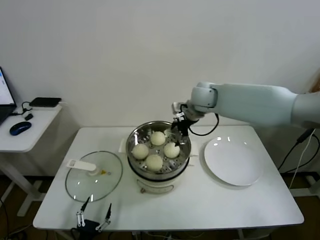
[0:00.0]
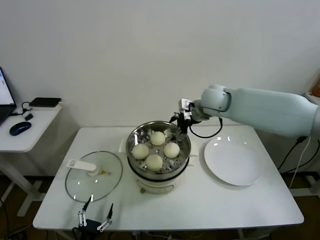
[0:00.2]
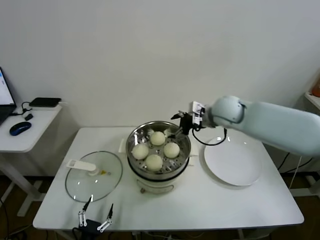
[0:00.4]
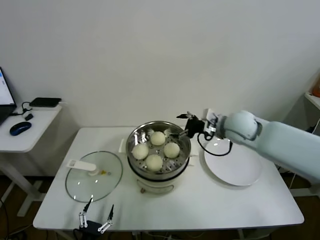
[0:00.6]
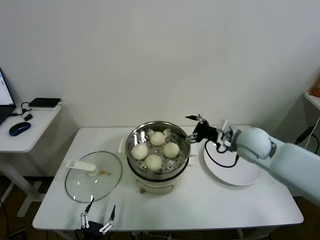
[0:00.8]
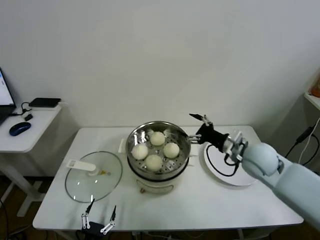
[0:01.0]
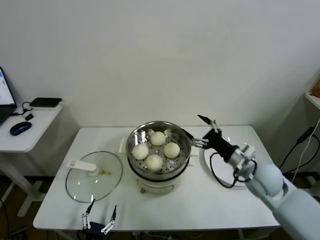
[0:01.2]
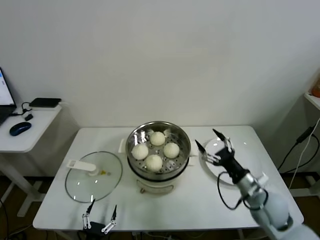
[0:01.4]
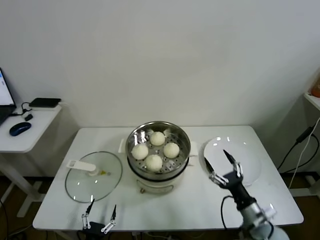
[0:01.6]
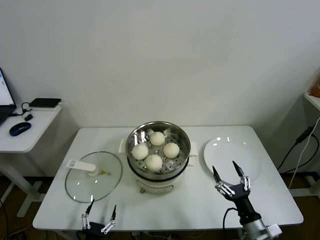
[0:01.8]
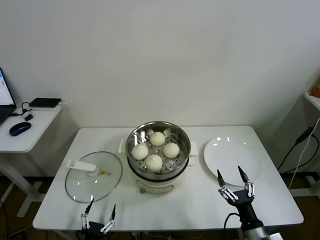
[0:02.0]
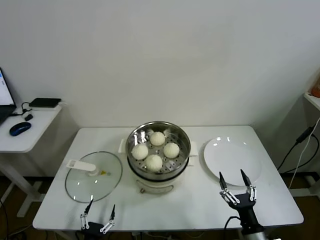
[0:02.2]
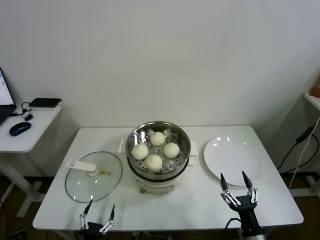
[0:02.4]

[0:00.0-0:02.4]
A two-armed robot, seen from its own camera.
Task of the whole recording: take steamed baozi put them in steamer.
0:00.0 to 0:01.2: The right gripper is displaced backward, to the right and downward by about 30 cm.
0:01.2 to 0:02.4: The right gripper is displaced backward and downward by about 30 cm.

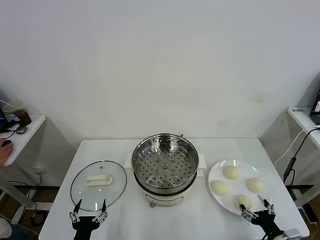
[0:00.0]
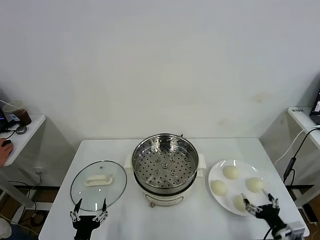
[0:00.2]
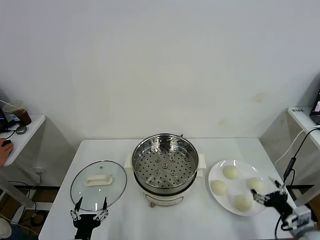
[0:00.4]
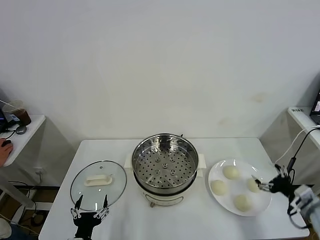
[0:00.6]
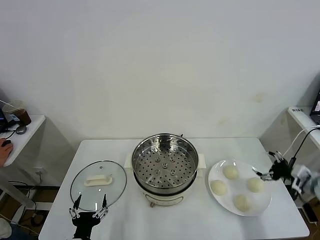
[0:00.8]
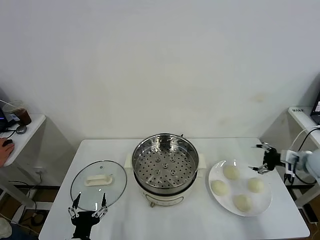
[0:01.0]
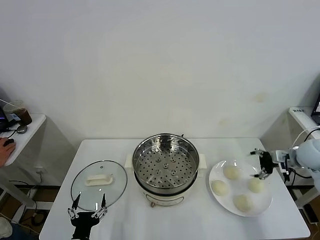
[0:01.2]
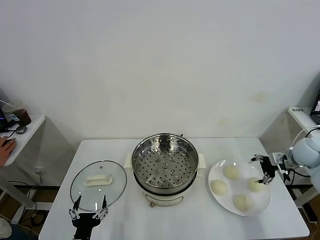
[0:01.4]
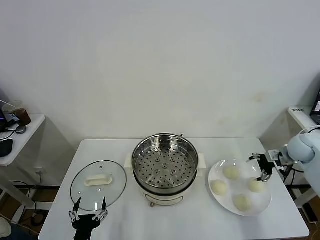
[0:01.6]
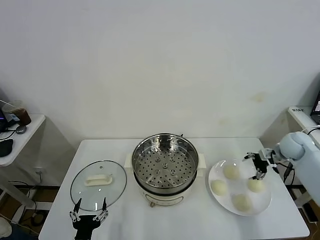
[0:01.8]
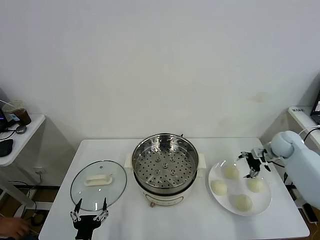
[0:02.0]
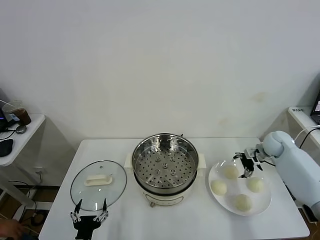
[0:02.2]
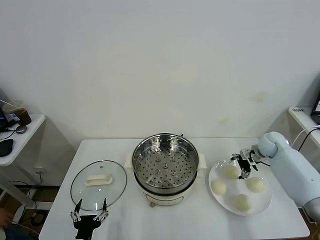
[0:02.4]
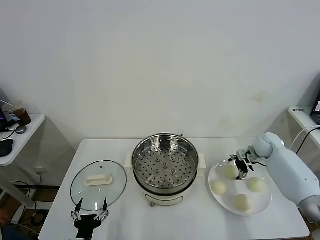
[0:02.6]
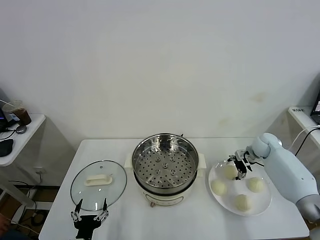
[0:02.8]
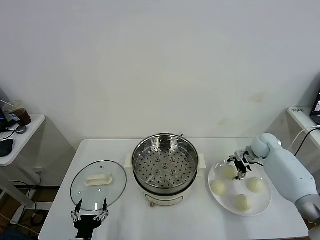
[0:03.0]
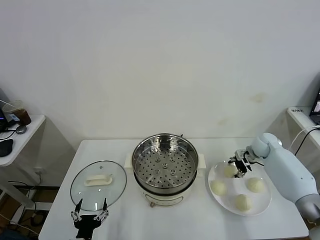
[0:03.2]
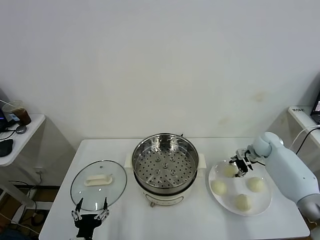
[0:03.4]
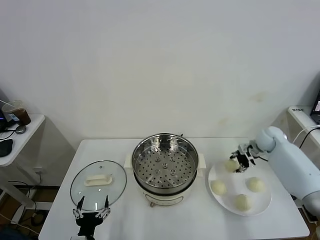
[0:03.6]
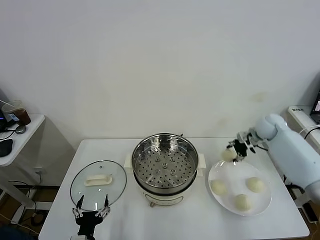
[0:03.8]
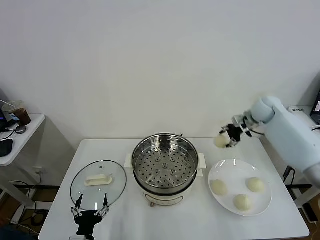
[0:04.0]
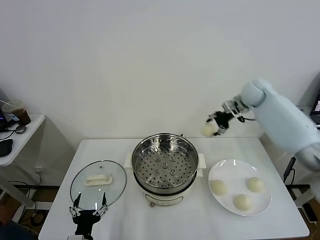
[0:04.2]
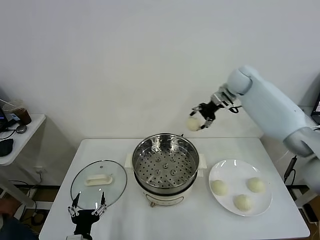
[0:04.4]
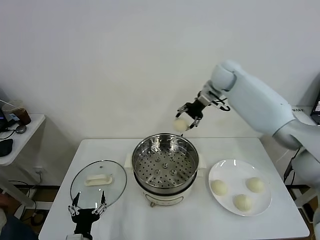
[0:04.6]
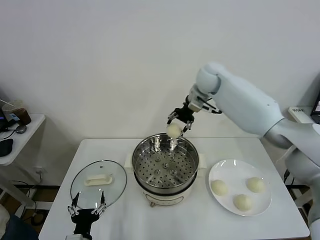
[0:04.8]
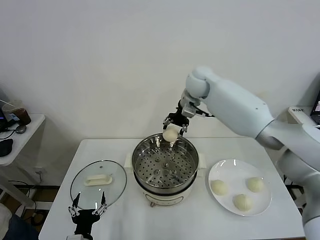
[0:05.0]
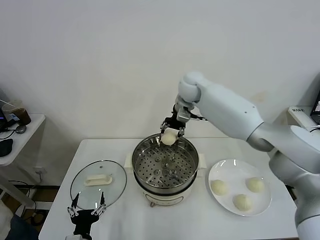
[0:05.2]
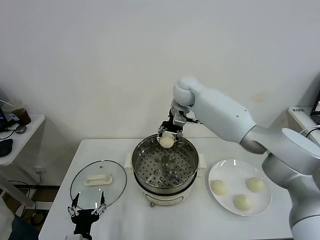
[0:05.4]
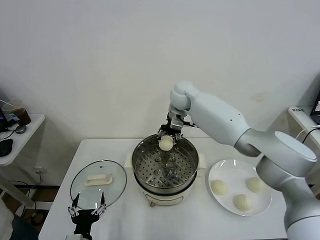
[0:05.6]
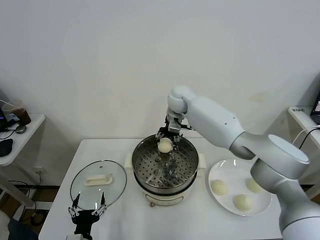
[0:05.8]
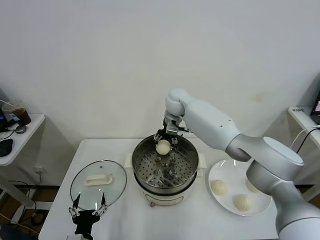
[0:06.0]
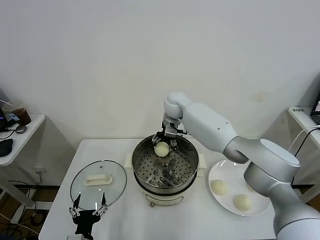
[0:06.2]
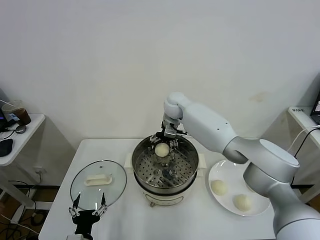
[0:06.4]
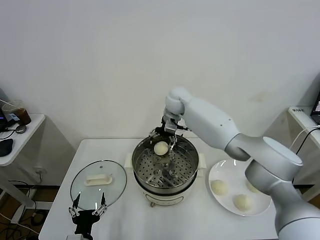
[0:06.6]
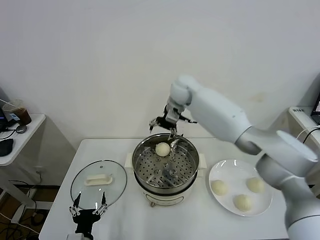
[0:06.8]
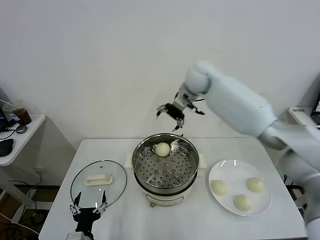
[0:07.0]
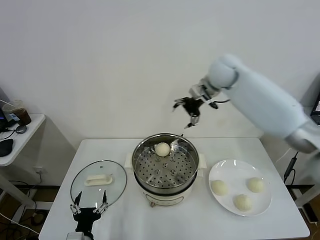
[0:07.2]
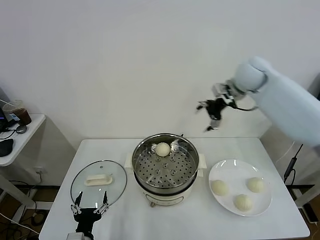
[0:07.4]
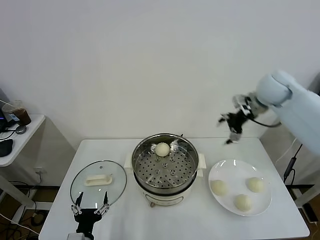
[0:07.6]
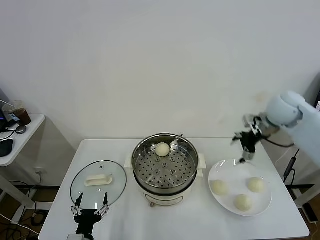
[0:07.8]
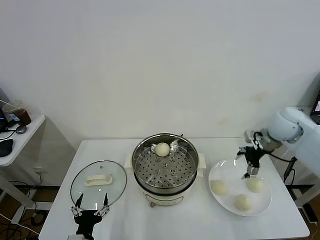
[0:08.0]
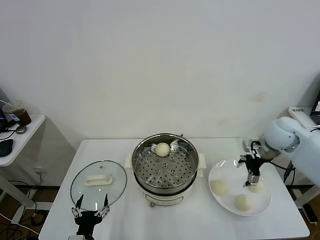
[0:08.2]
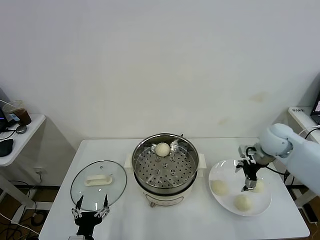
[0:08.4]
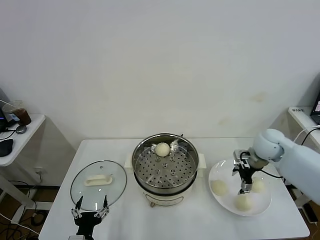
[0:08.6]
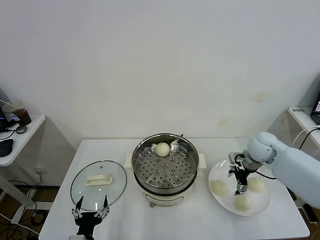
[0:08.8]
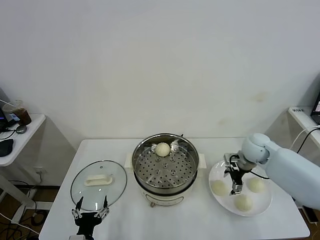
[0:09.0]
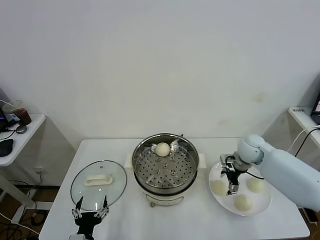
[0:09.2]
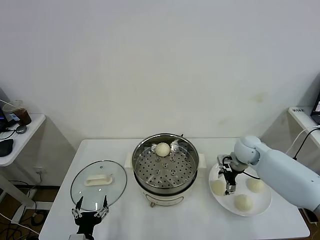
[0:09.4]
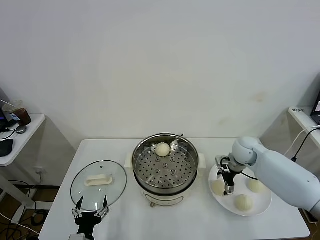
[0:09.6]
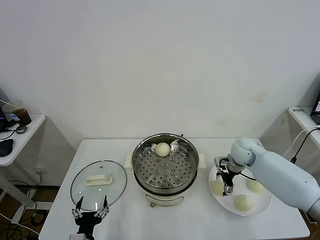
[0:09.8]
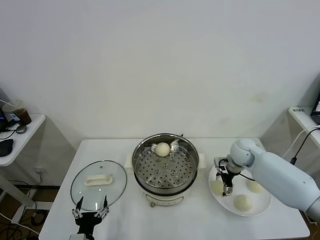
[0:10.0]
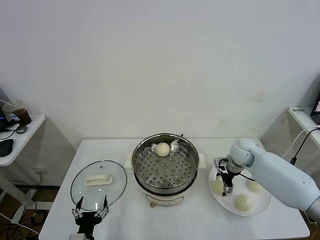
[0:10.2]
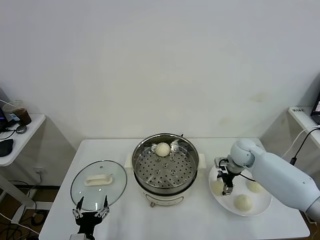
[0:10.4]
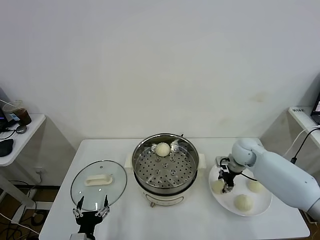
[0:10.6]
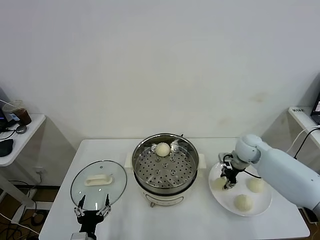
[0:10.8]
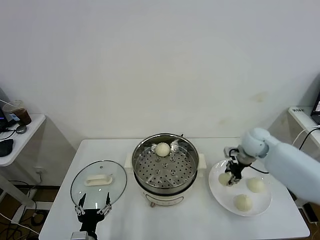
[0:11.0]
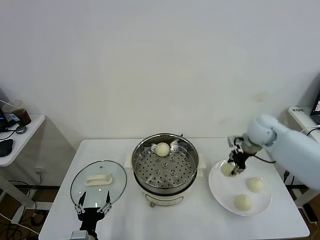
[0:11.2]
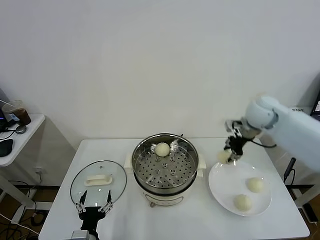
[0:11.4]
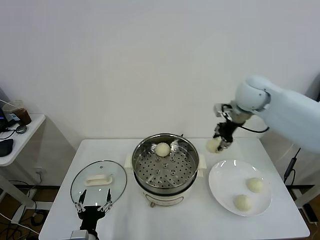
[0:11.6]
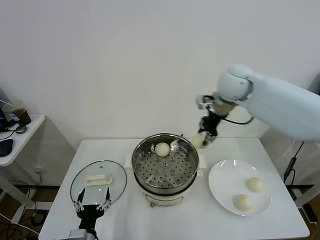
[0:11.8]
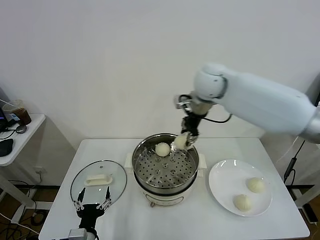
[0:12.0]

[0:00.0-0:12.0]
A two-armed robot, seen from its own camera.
Task of the whole recording: take steamed baozi put them in steamer.
Step, 0:00.0 to 0:03.2: Grasp the baozi in the plate with right gripper.
Step, 0:03.6 to 0:06.4: Place the baozi on the steamer with right gripper.
Step, 0:06.6 to 0:10.6: Grasp the baozi in the plate with right gripper.
0:01.6 to 0:03.0: The right gripper shifts approximately 10 cm downward, to the left and forward.
0:03.0 to 0:04.4: The right gripper is displaced upward and to the left by roughly 30 cm.
0:04.4 to 0:06.0: The right gripper moves to the left and downward, roughly 20 cm.
0:06.0 to 0:07.6: The right gripper heads to the right, covering approximately 30 cm, and opens up.
0:07.6 to 0:09.0: The right gripper travels downward by about 20 cm.
0:09.0 to 0:10.4: The grippers move only a little.
0:10.4 to 0:12.0: The right gripper heads upward and to the left, covering some 35 cm.

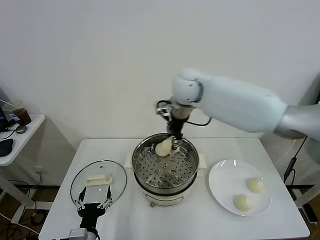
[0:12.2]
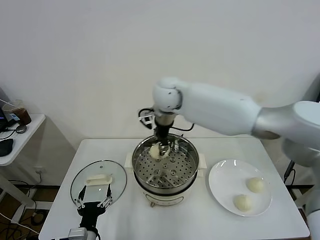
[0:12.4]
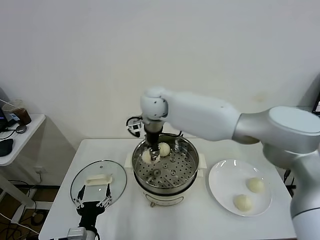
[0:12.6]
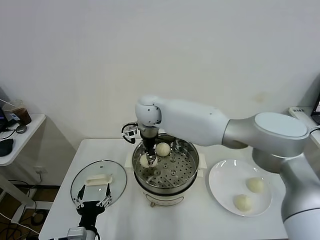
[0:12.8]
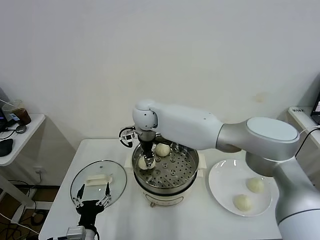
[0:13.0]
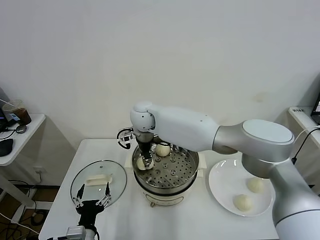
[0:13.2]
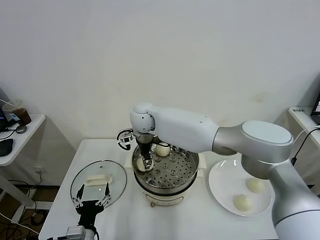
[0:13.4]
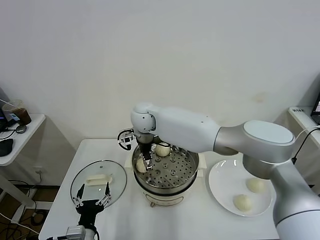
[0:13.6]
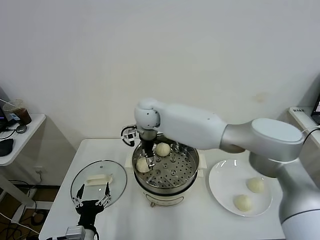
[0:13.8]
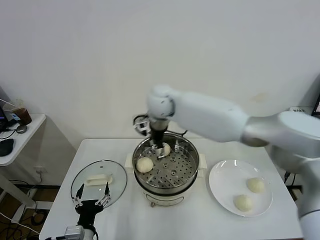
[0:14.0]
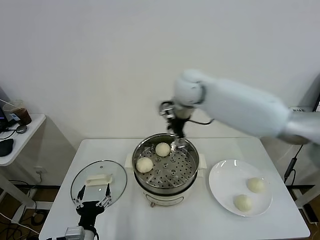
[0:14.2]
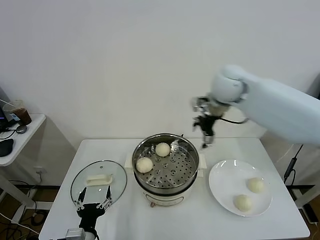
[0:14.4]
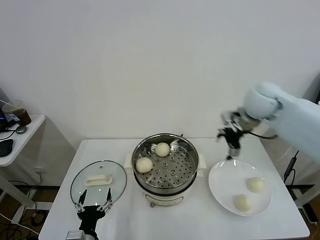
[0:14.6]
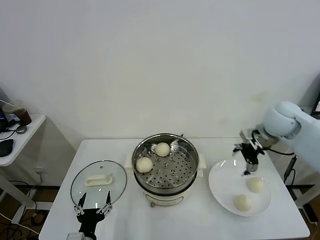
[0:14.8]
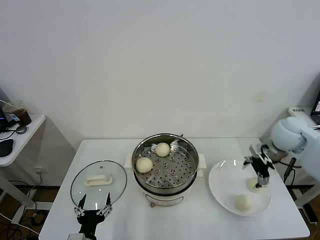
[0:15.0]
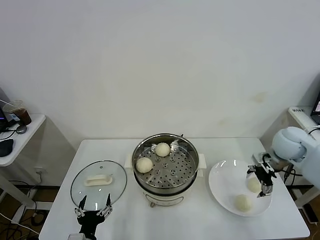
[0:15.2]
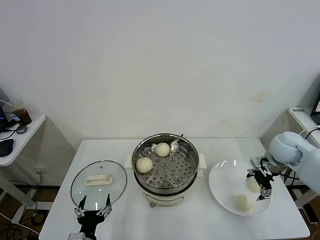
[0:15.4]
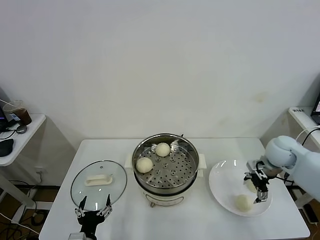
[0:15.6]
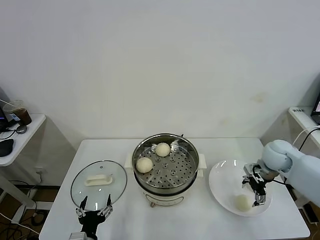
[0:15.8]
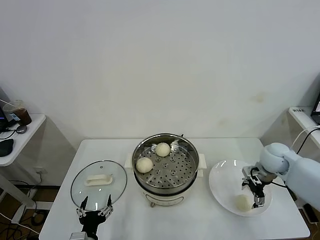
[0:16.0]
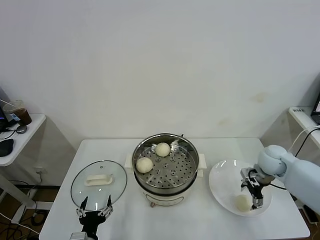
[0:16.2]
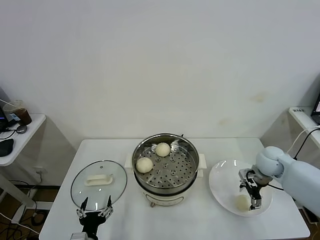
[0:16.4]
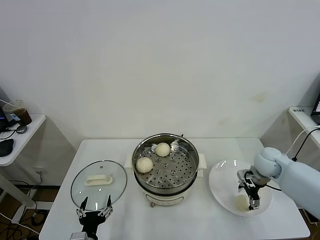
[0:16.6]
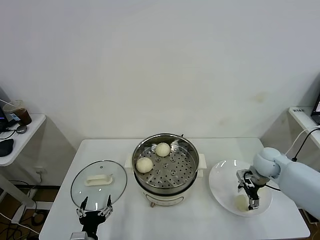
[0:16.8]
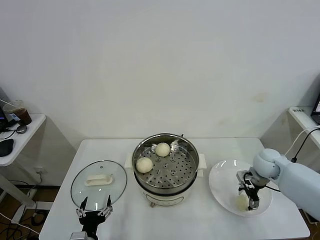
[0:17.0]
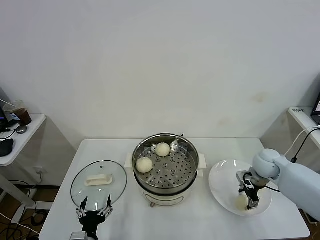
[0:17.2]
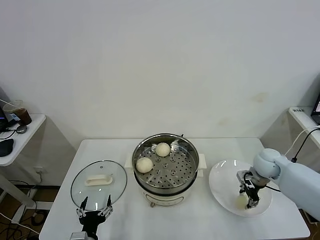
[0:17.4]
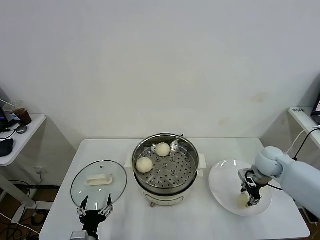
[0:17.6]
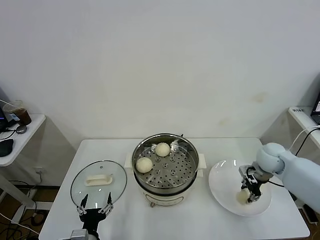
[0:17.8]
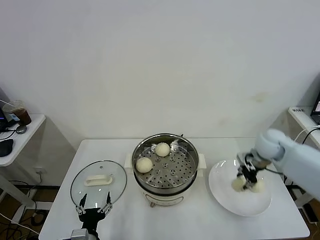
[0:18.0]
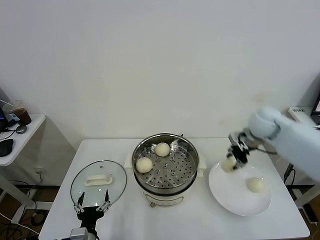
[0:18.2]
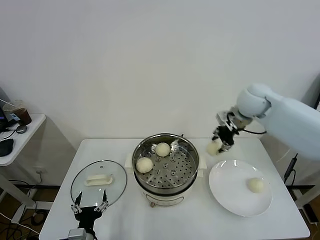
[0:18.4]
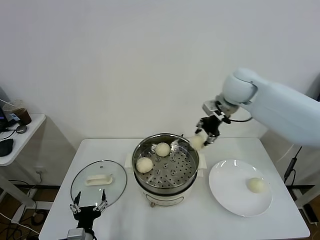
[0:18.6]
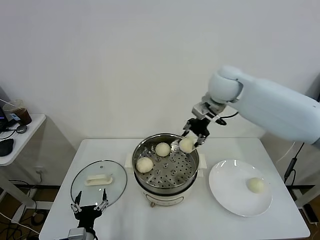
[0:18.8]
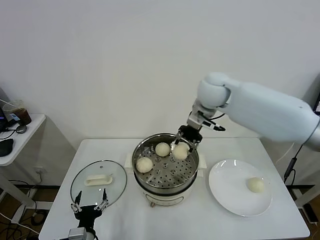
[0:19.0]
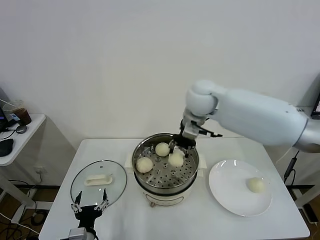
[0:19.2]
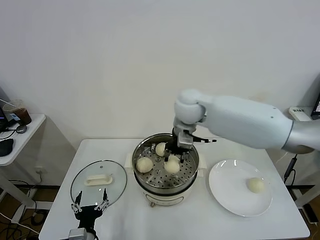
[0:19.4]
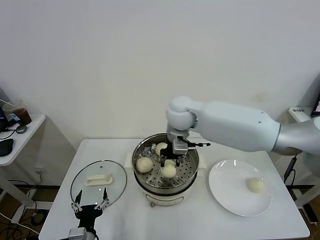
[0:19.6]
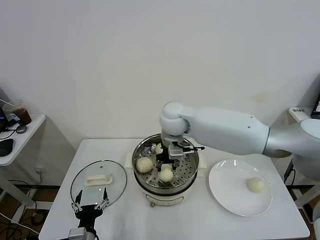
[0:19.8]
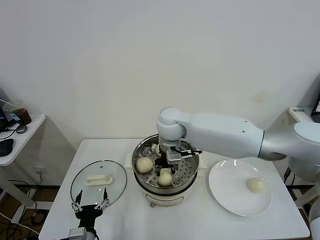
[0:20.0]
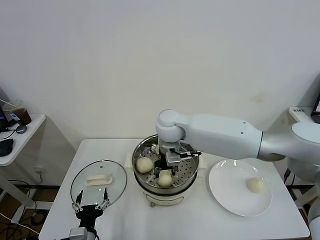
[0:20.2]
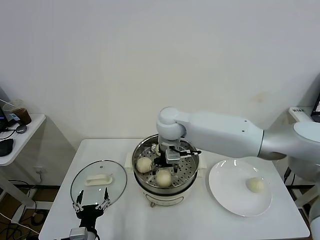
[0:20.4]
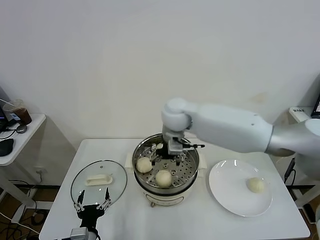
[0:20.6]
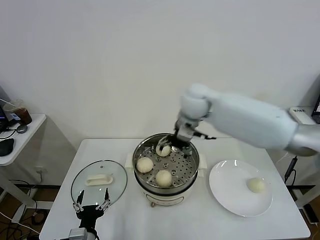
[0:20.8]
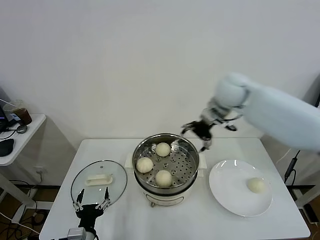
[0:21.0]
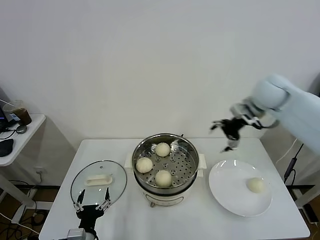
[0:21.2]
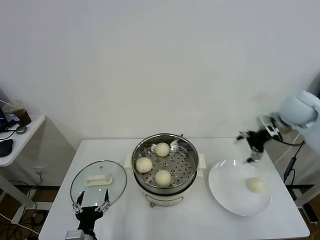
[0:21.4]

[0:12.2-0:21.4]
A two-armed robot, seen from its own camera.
Task of the whole recording: take steamed baozi put them in steamer.
Step, 0:12.2 to 0:13.8: Place the baozi on the steamer with right gripper.
Step, 0:14.0 to 0:17.6: Grasp the baozi in the plate with right gripper.
Step, 0:17.8 to 0:20.6: Place the baozi on the steamer with right gripper.
0:12.2 to 0:13.8: The right gripper moves to the left and downward, about 10 cm, and opens up.
0:13.8 to 0:15.2: The right gripper moves to the right, about 40 cm.
0:15.2 to 0:16.8: The right gripper goes some 10 cm downward.
0:16.8 to 0:18.4: The right gripper moves upward and to the left, approximately 25 cm, and closes.
0:18.4 to 0:19.8: The right gripper heads to the left, covering roughly 25 cm.
0:19.8 to 0:21.4: The right gripper goes some 40 cm to the right, and opens up.
